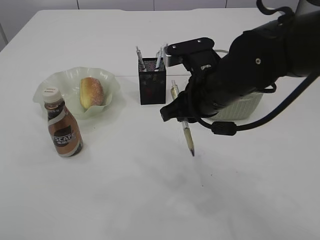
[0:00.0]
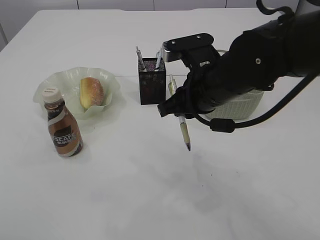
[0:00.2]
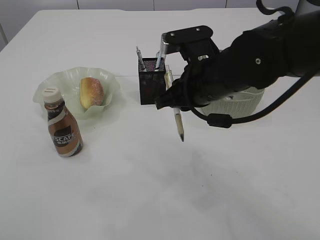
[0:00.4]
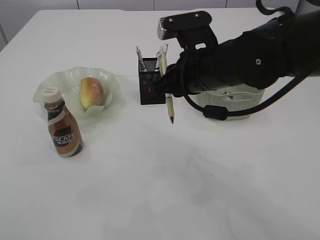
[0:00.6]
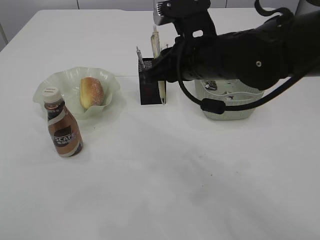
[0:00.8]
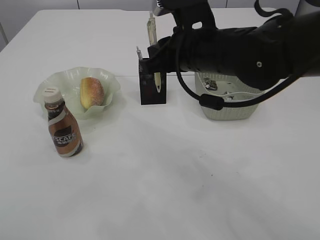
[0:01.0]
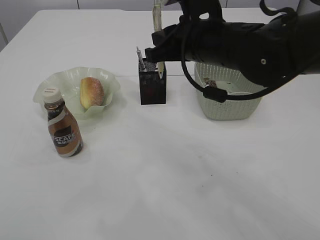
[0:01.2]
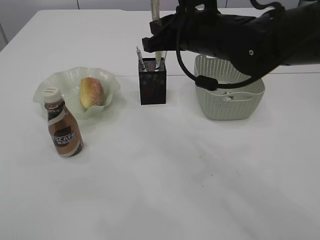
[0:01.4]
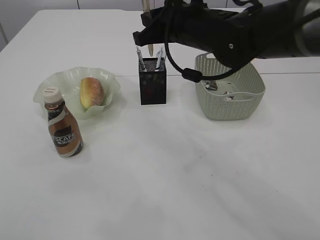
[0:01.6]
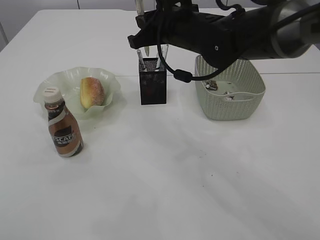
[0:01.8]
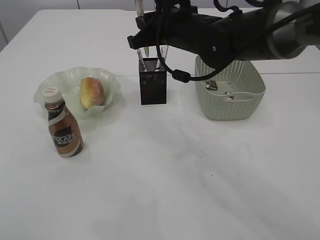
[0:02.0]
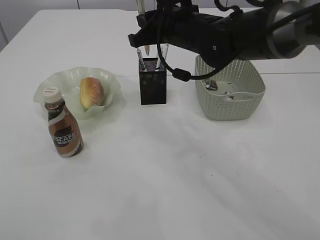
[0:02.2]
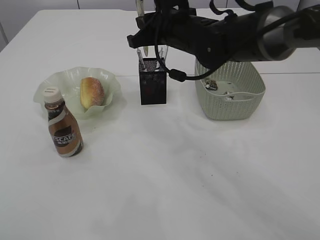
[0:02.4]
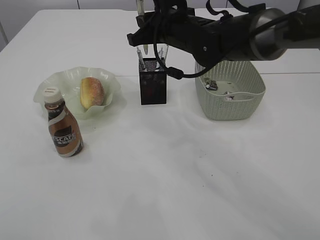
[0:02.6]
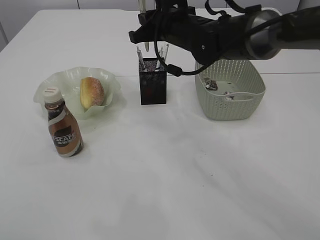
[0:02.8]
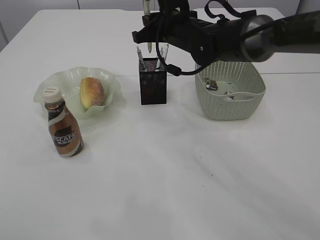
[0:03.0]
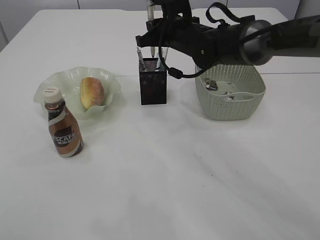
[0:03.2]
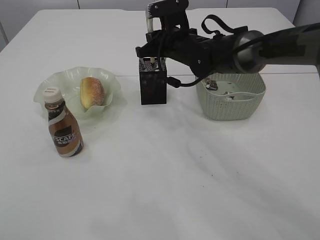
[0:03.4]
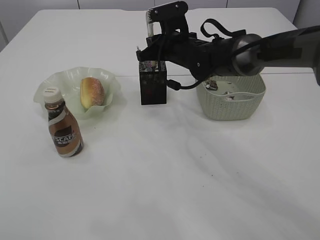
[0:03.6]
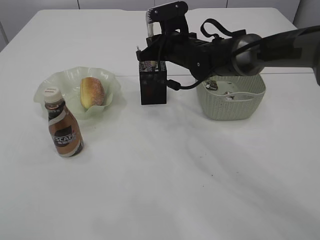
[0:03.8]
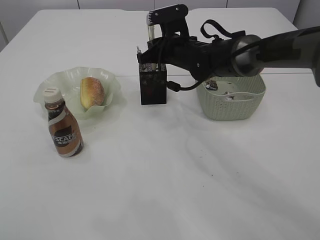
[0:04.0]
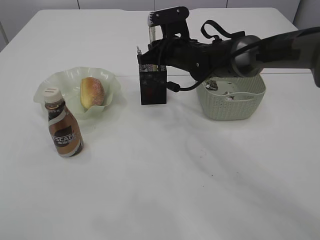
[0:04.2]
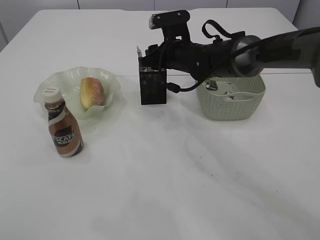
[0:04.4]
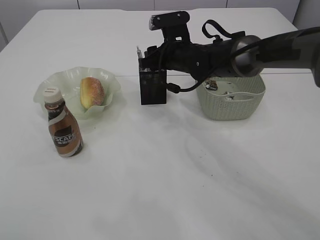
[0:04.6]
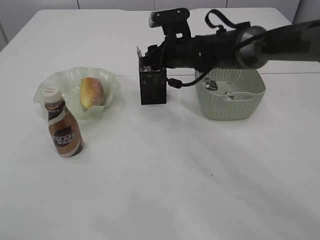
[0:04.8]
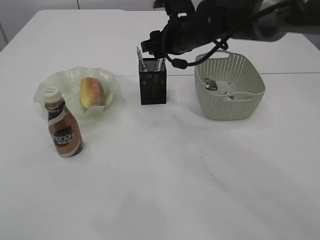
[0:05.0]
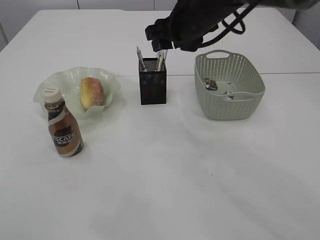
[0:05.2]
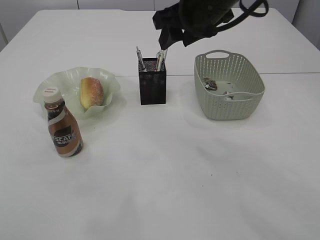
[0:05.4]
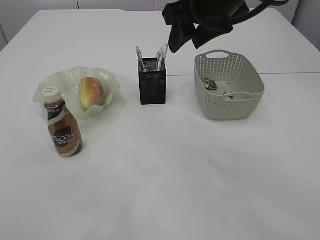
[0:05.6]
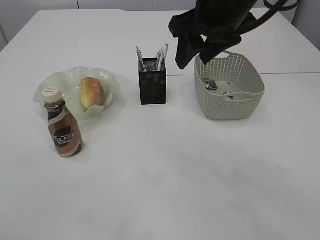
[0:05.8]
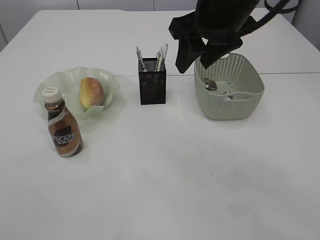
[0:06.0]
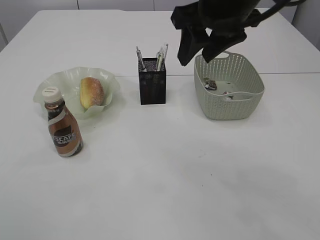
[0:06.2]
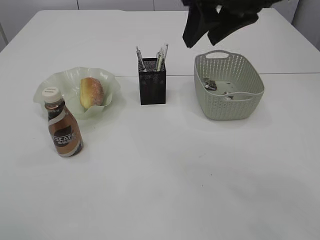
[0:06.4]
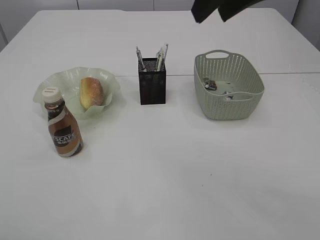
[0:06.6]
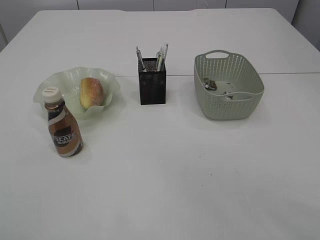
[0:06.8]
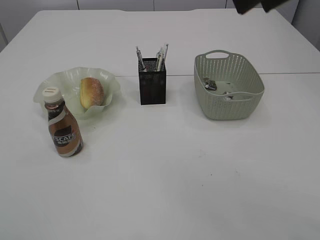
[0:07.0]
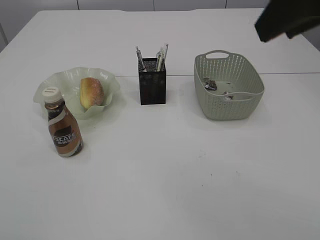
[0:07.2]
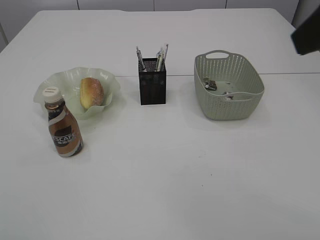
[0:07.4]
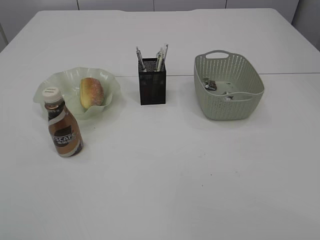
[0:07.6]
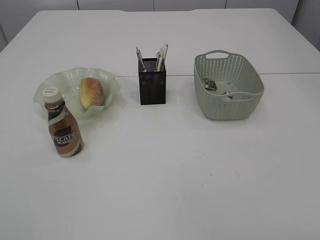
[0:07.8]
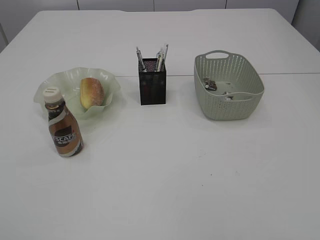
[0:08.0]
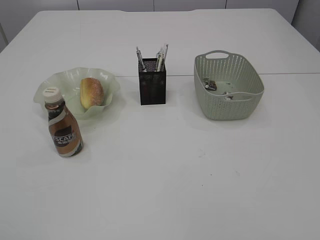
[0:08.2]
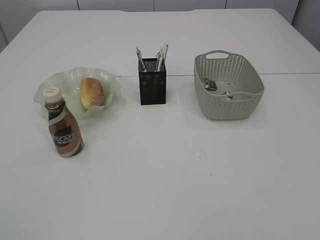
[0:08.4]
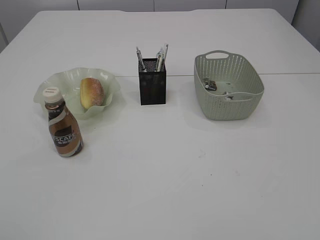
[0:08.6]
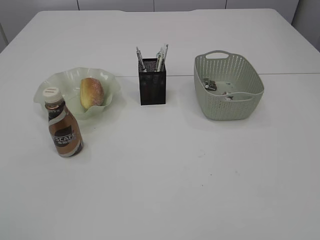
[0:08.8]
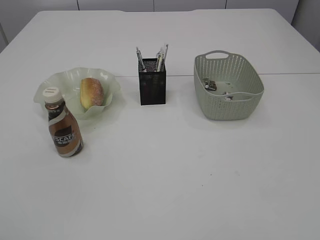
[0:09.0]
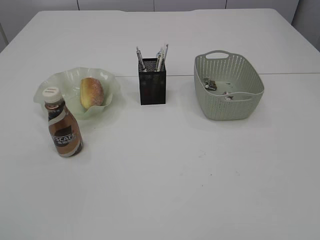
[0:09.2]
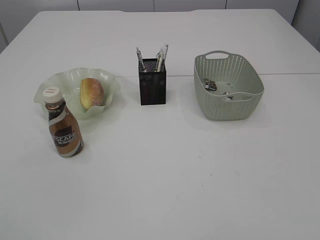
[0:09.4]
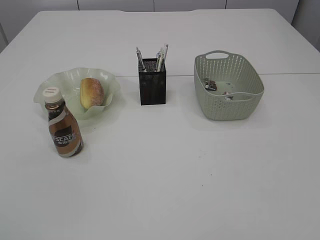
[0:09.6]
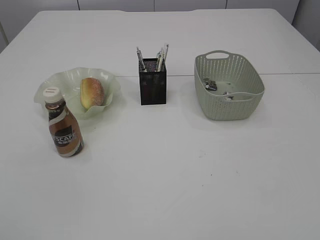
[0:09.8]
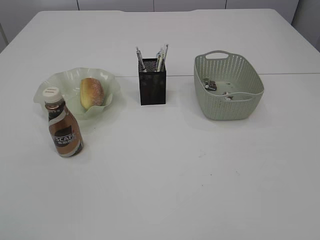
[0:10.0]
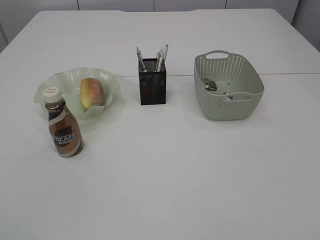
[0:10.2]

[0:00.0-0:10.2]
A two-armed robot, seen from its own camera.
Step, 0:00.0 to 0:07.0: Place the pen into the pen holder.
0:00.0 to 0:01.4: The right gripper heads forward and upward, covering roughly 10 cm.
0:01.4 to 0:03.0: The right gripper shifts roughly 10 cm forward.
0:03.0 to 0:04.4: The right gripper moves downward, approximately 5 cm, and opens up.
0:04.4 to 0:05.8: The left gripper moves approximately 5 cm; the right gripper heads upward and backward, covering about 20 cm.
0:05.8 to 0:07.2: The right gripper heads backward, upward and to the right, covering about 20 cm. The left gripper goes about 15 cm backward and to the left, and opens.
0:07.2 to 0:08.8: The right gripper is displaced backward, downward and to the right by some 30 cm.

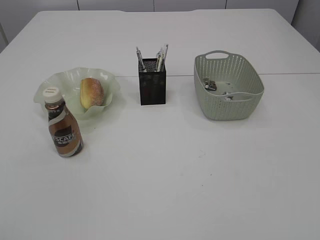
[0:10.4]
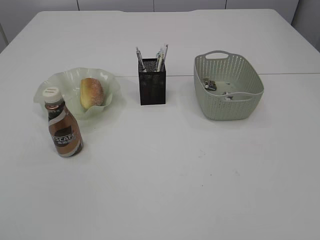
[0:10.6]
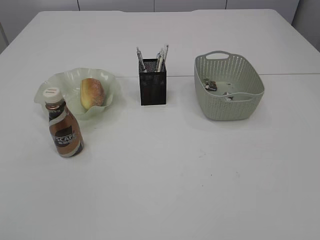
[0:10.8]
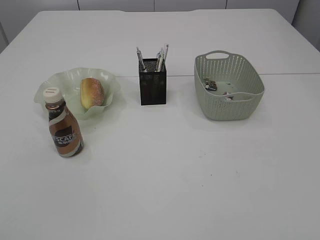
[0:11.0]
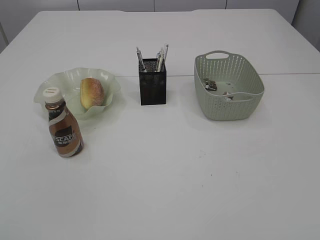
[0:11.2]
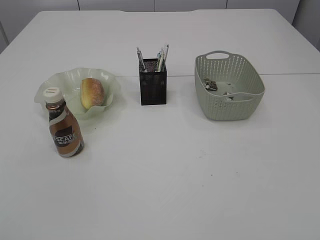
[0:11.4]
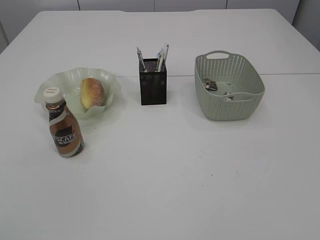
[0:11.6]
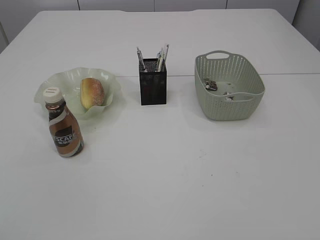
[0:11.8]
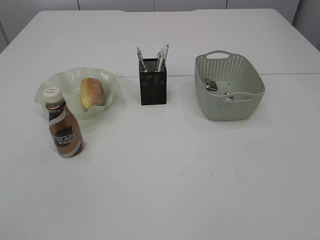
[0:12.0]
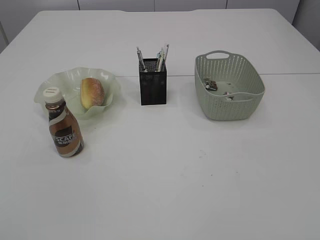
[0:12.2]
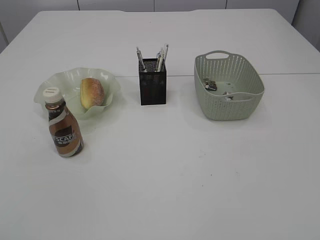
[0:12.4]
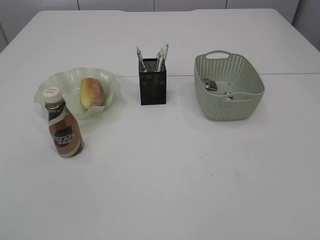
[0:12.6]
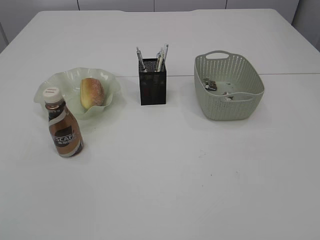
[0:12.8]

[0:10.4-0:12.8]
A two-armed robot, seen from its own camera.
0:11.6 to 0:12.8: Both grippers stay put.

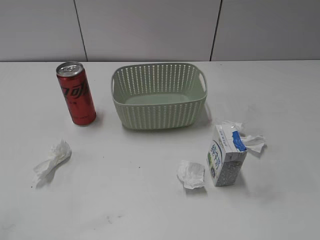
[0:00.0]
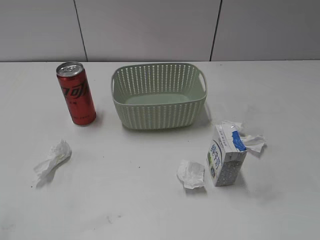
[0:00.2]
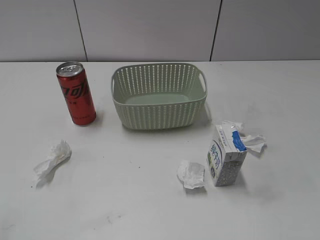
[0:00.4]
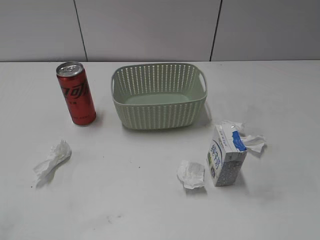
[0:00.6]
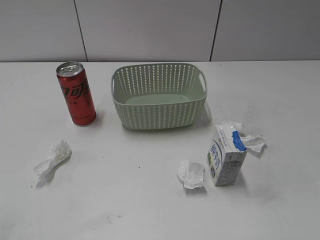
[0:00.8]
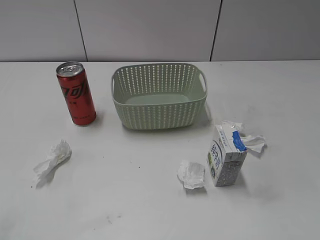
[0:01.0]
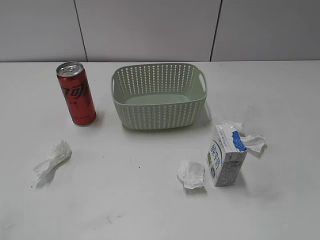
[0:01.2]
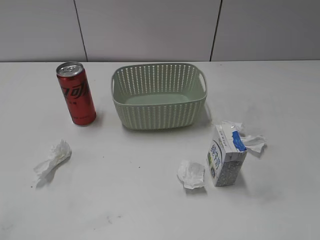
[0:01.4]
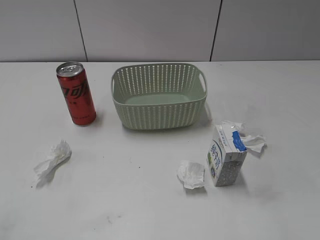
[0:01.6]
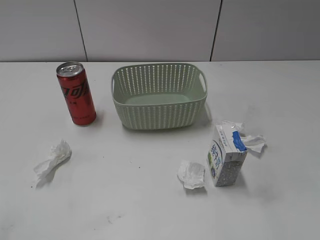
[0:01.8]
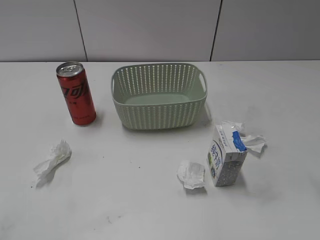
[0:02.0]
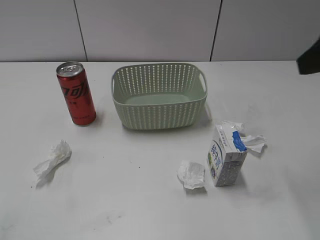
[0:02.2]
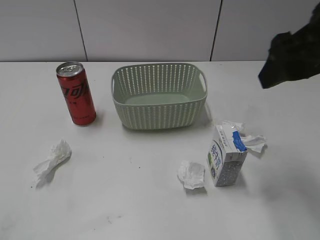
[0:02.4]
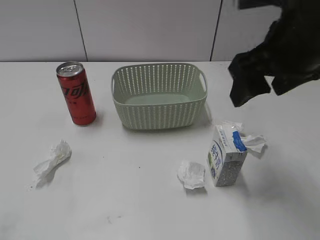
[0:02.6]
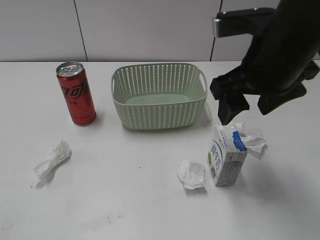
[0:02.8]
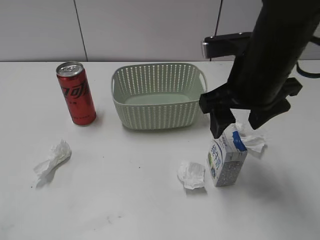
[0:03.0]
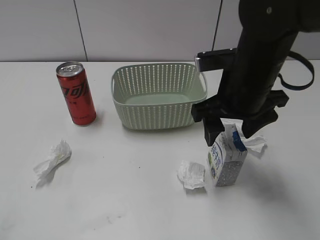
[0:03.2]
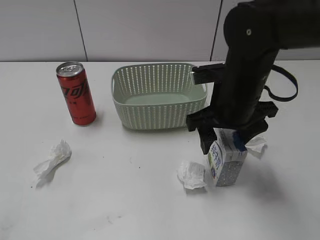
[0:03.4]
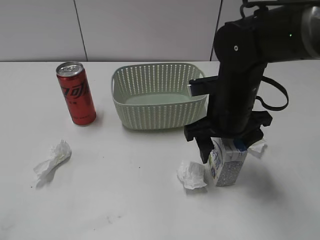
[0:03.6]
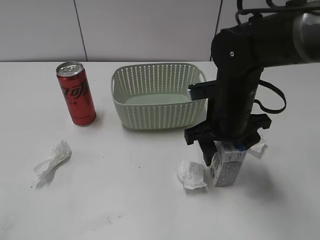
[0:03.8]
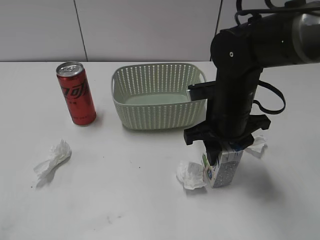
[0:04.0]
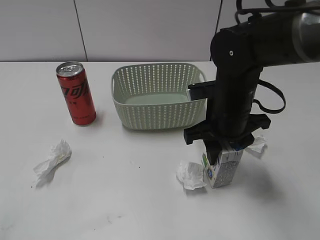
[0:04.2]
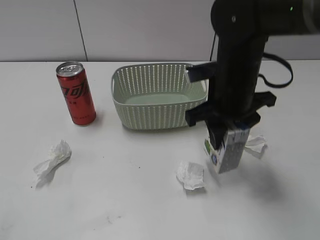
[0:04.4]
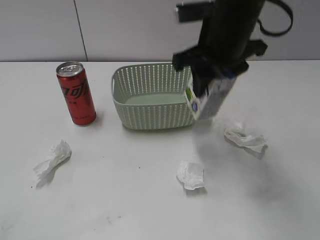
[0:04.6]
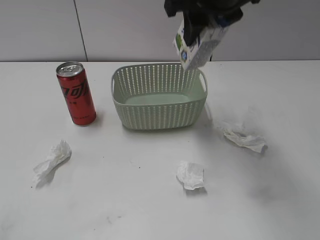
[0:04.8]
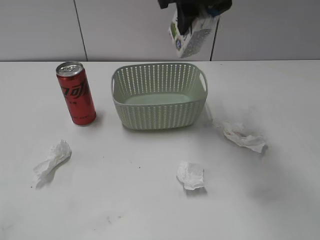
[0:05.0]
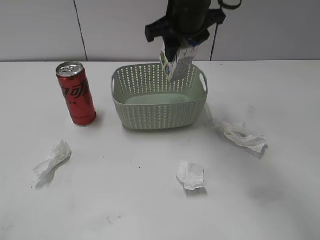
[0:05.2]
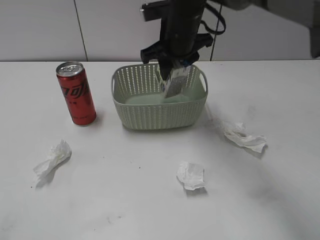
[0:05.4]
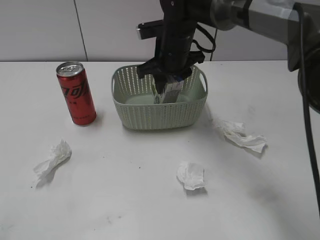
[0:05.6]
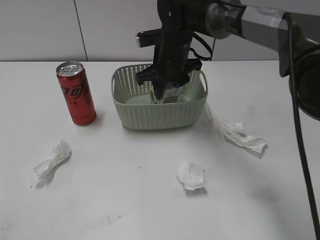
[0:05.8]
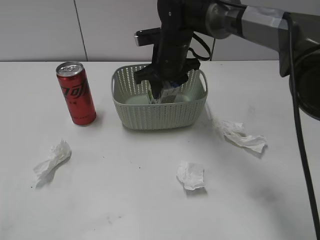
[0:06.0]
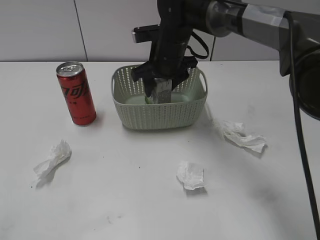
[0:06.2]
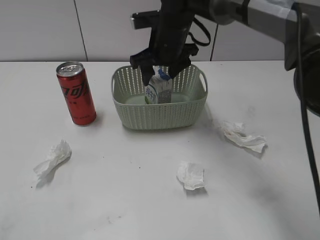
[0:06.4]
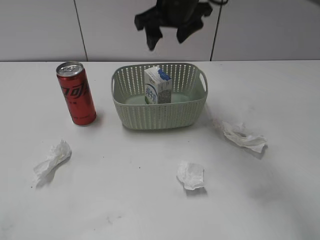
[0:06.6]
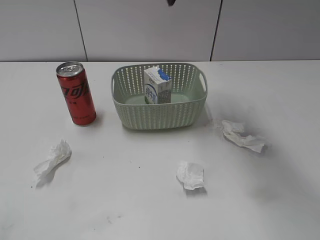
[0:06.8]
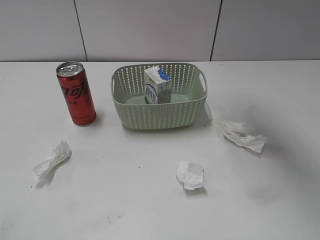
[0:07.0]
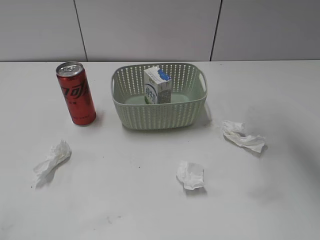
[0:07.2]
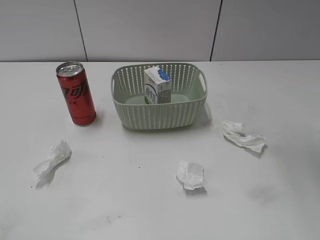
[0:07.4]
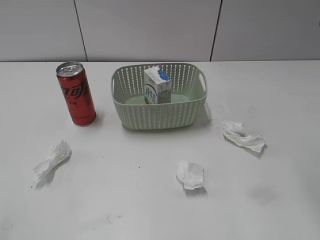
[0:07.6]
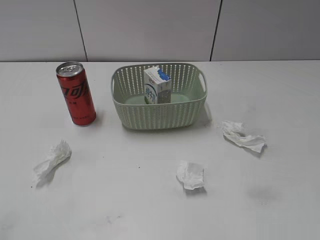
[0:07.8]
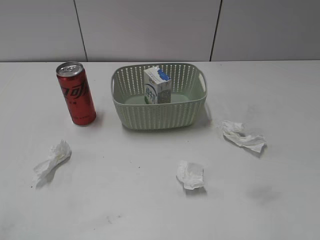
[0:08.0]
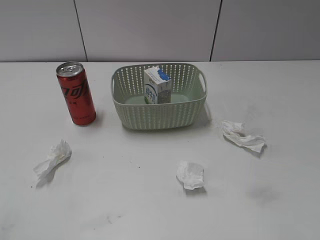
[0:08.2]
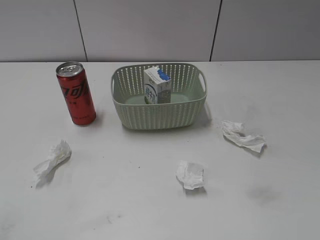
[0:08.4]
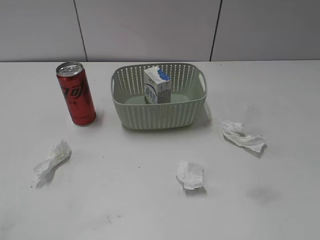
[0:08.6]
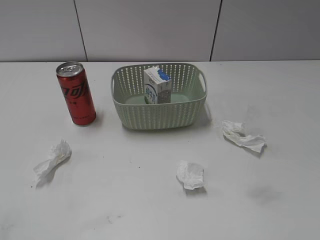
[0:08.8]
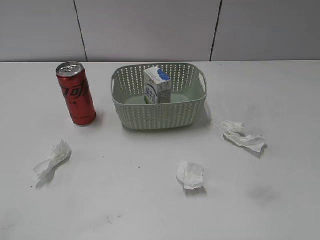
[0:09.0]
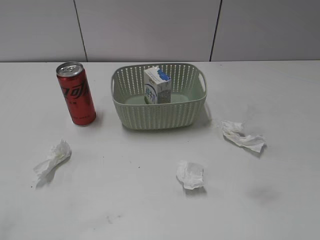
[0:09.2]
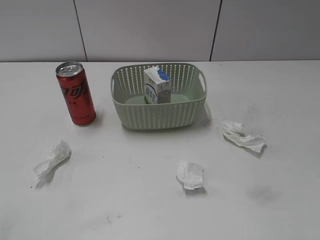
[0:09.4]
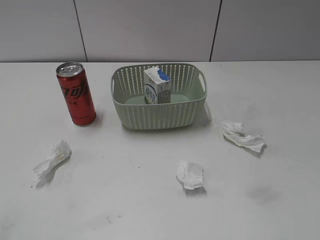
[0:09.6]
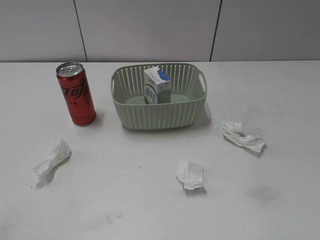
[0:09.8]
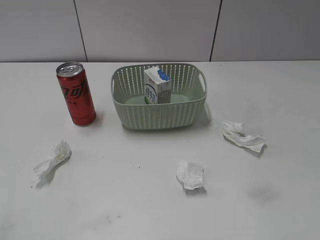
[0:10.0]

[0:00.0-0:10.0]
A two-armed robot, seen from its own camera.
Step, 0:02.2 to 0:04.0: Grasp the milk with right gripper.
Step, 0:04.2 to 0:06.4: Place the milk in the basket with right gripper.
0:01.4 to 0:02.8: The right gripper heads forward and to the left, covering approximately 30 cm.
0:02.8 to 0:04.2: The right gripper shifts roughly 15 cm downward, and closes.
0:04.2 to 0:05.8: The right gripper goes approximately 15 cm forward and to the left, and reaches roughly 20 cm upward, then returns.
0:05.8 to 0:07.2: The right gripper is displaced upward and to the right by some 30 cm, and opens its fingers.
0:07.2 to 0:08.6: The right gripper is displaced backward, downward and to the right by approximately 35 cm.
